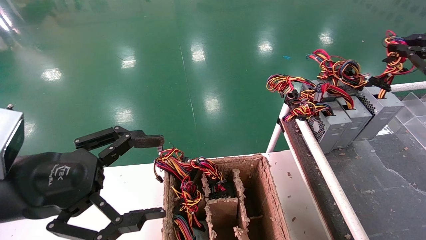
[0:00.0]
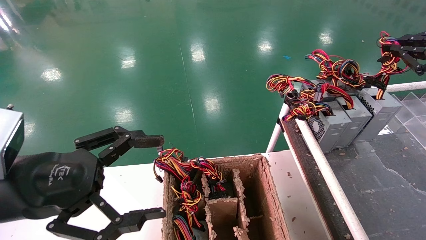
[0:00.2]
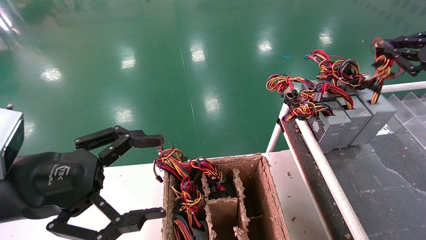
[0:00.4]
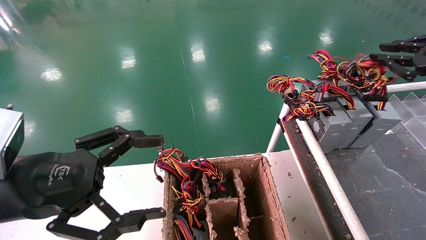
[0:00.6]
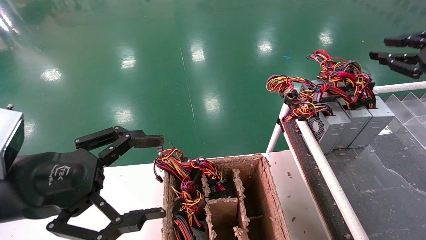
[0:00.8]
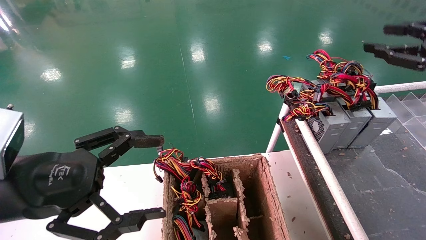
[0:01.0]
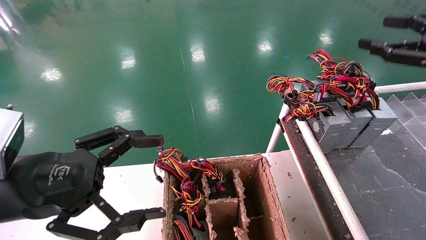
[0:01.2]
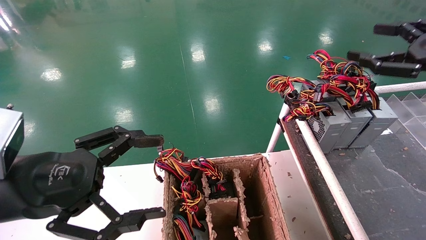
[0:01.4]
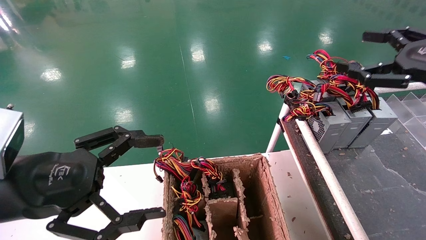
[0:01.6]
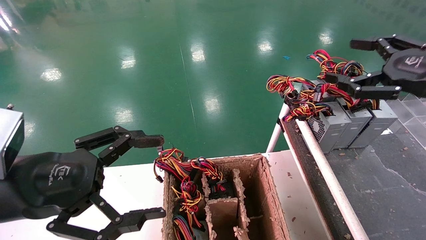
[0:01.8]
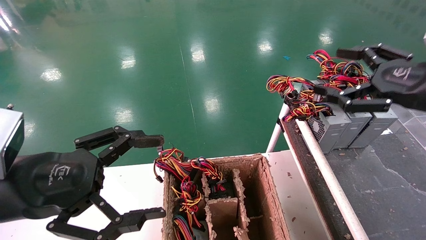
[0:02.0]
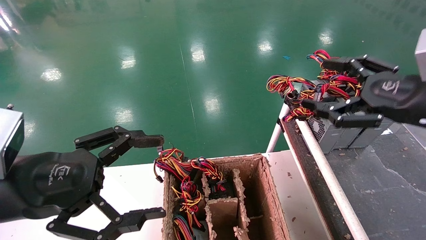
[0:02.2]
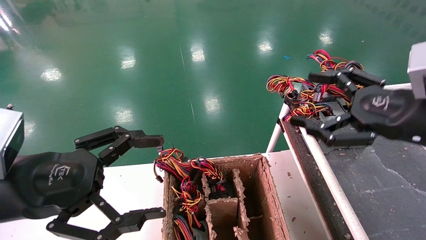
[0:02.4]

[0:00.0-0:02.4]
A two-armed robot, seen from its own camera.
0:00.0 to 0:01.2: The right gripper opens up.
0:01.2 to 0:02.4: The right gripper is displaced to the left and downward by about 15 cm, and opens up.

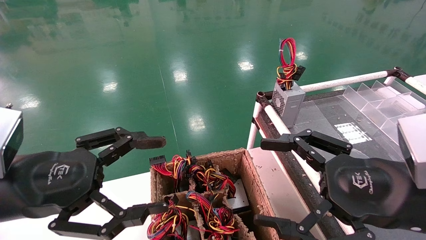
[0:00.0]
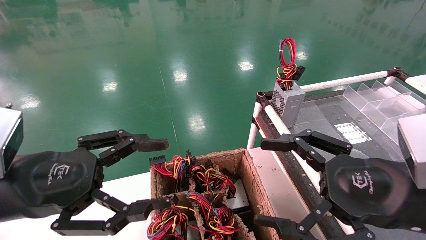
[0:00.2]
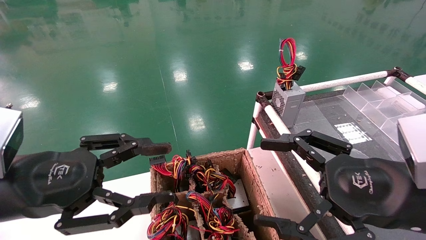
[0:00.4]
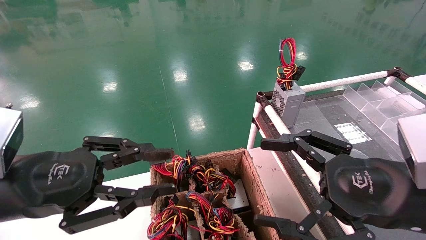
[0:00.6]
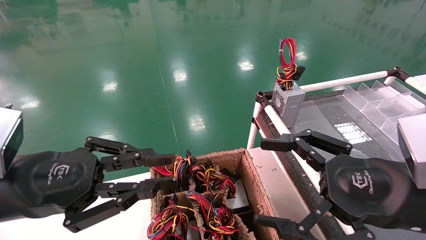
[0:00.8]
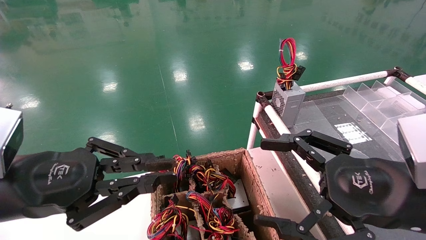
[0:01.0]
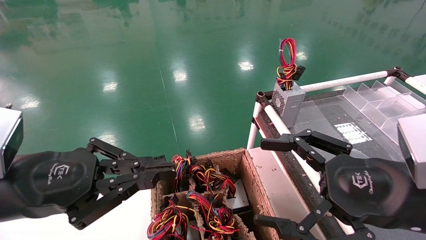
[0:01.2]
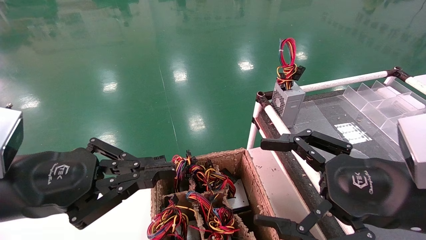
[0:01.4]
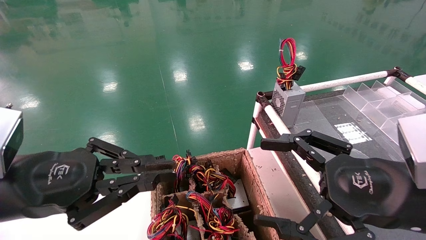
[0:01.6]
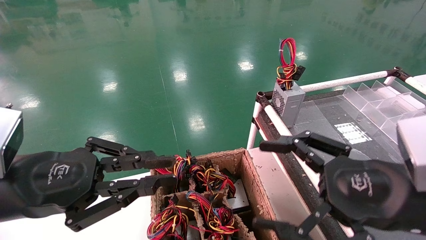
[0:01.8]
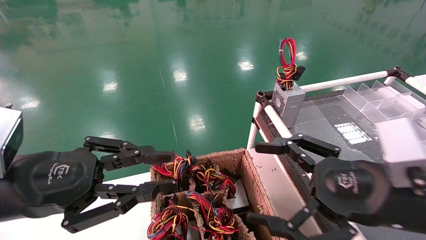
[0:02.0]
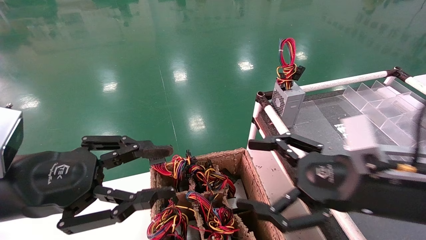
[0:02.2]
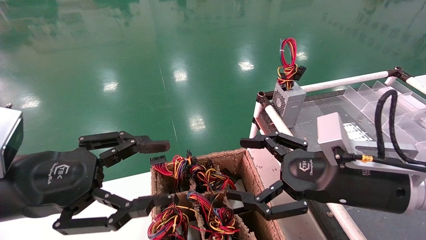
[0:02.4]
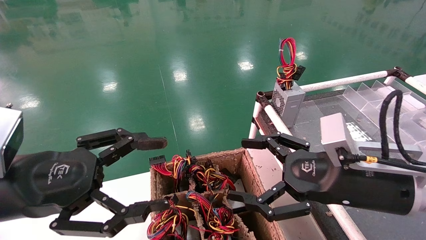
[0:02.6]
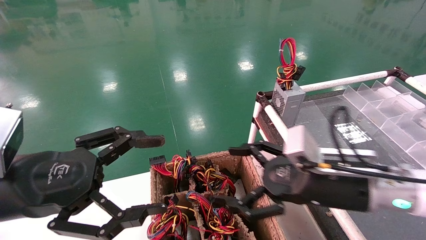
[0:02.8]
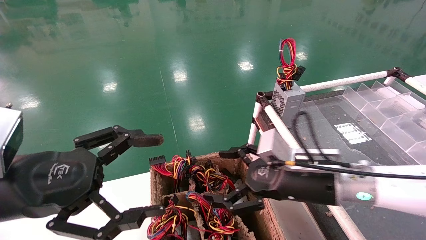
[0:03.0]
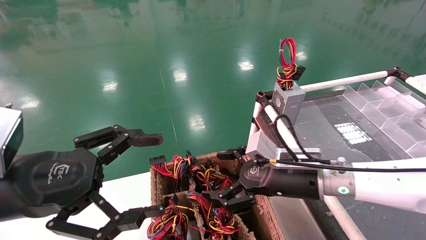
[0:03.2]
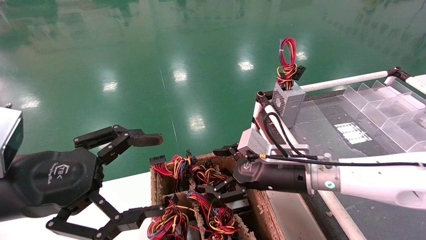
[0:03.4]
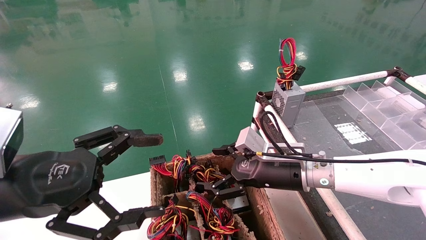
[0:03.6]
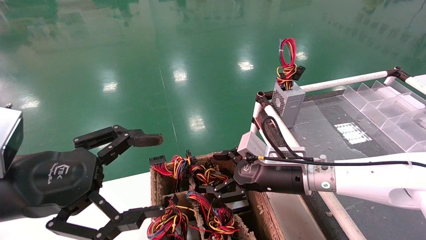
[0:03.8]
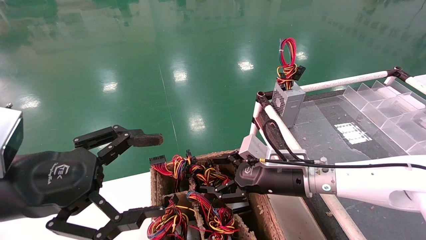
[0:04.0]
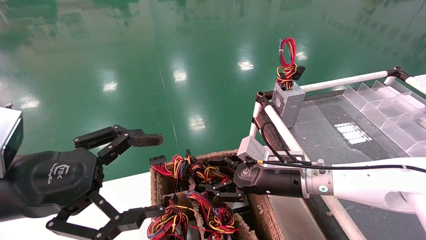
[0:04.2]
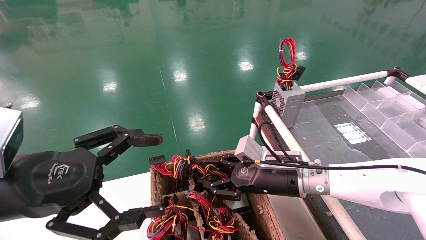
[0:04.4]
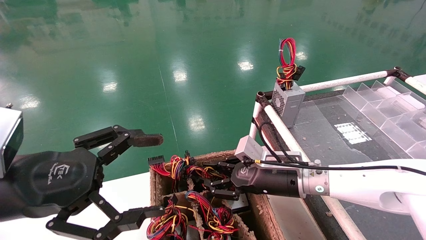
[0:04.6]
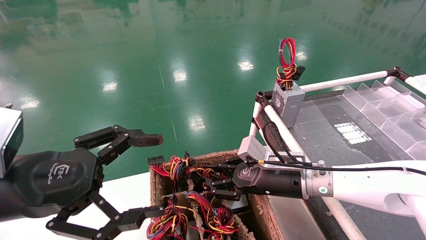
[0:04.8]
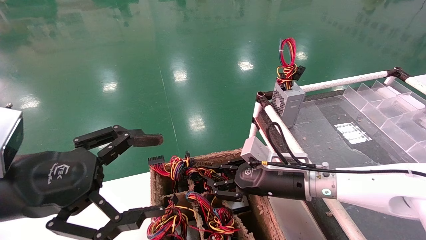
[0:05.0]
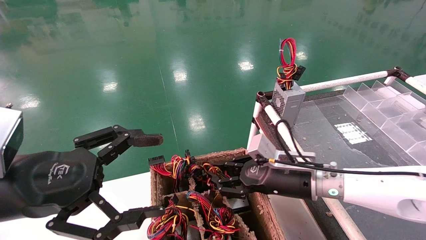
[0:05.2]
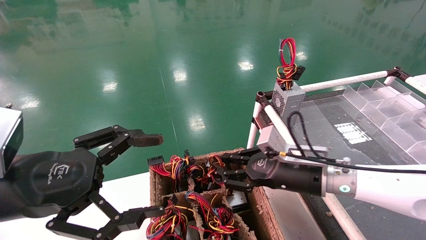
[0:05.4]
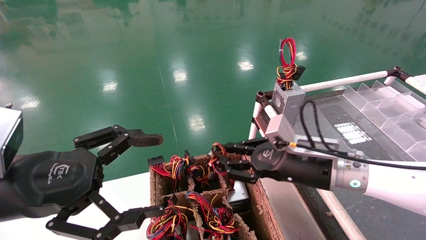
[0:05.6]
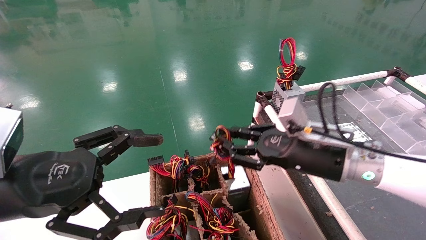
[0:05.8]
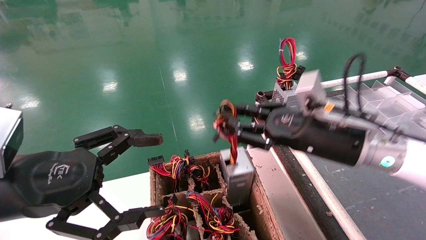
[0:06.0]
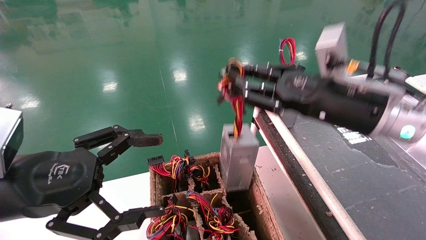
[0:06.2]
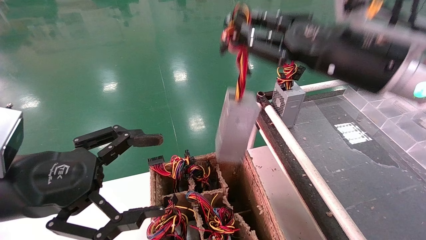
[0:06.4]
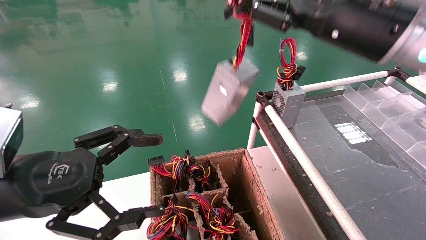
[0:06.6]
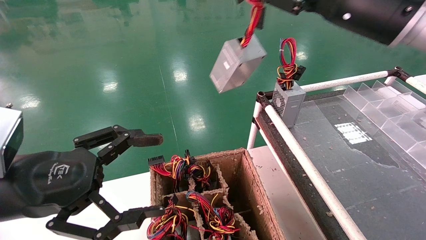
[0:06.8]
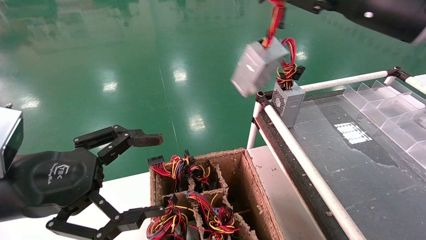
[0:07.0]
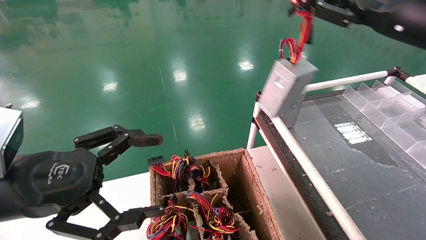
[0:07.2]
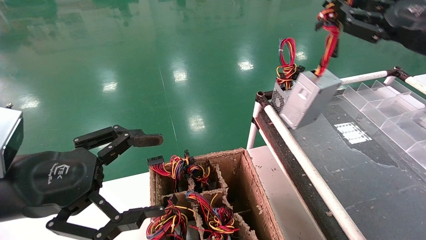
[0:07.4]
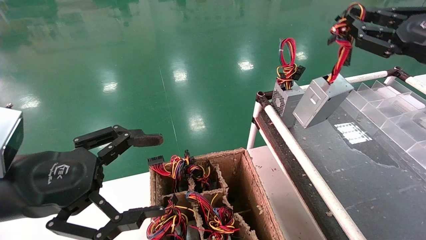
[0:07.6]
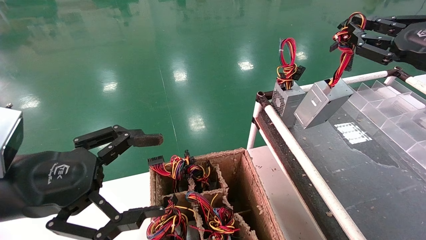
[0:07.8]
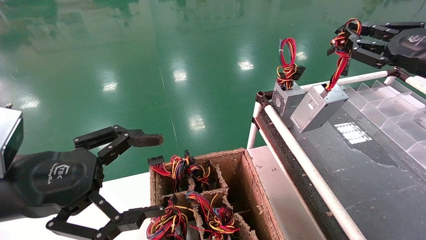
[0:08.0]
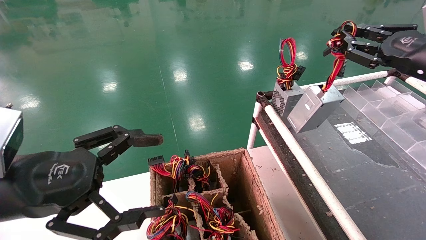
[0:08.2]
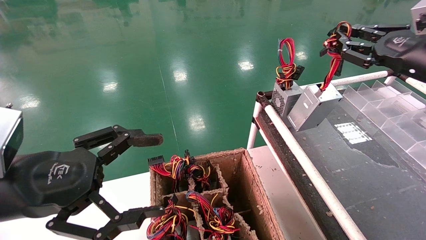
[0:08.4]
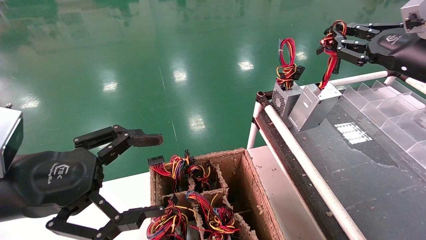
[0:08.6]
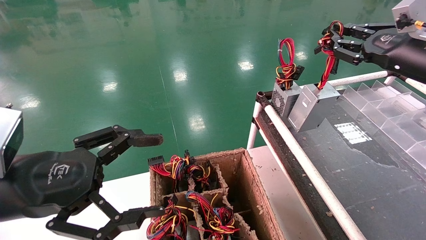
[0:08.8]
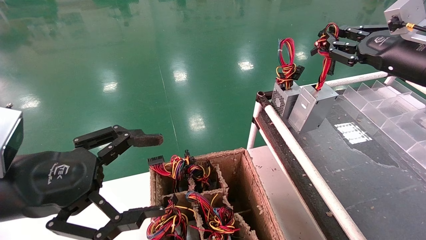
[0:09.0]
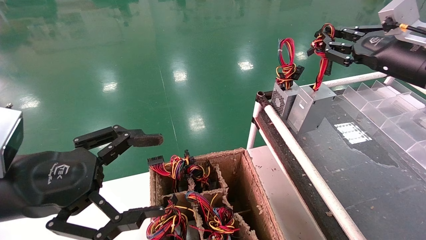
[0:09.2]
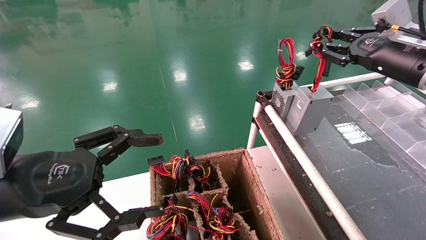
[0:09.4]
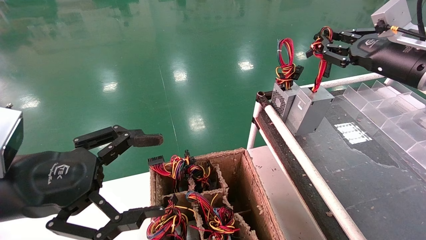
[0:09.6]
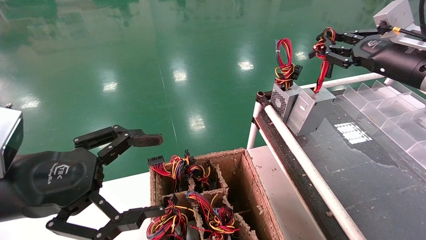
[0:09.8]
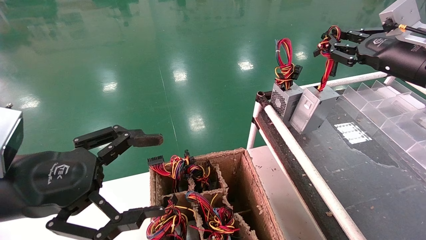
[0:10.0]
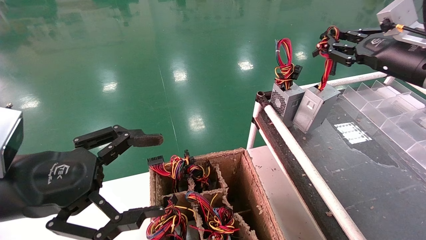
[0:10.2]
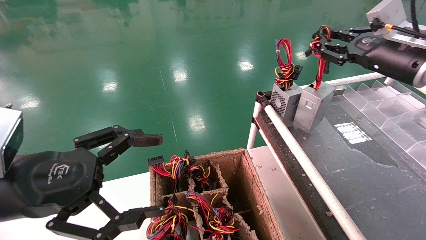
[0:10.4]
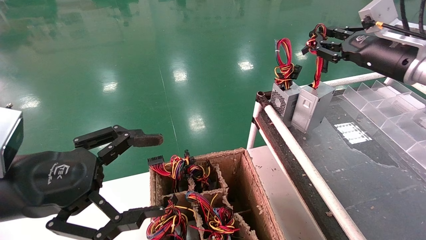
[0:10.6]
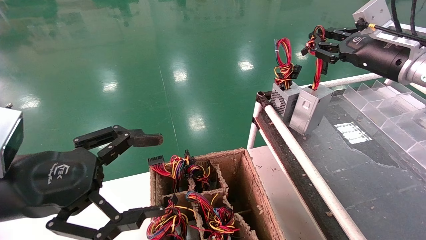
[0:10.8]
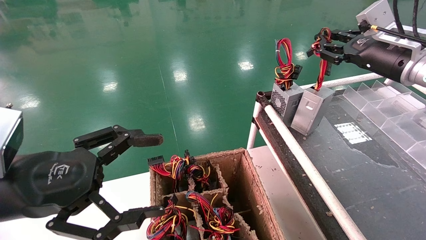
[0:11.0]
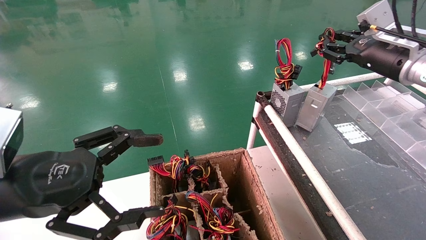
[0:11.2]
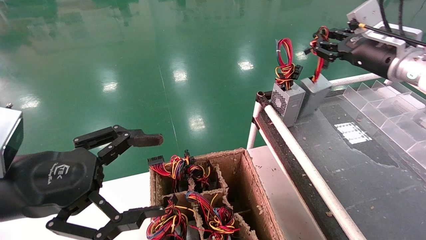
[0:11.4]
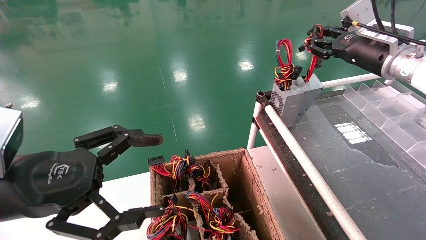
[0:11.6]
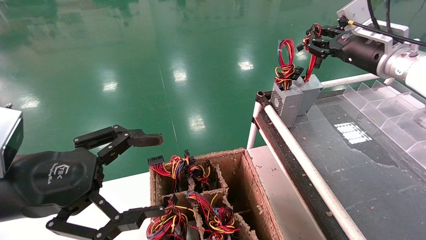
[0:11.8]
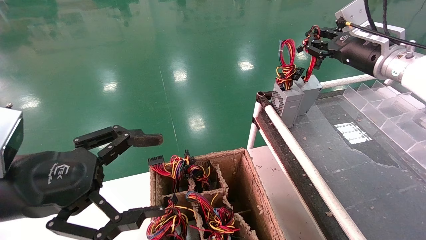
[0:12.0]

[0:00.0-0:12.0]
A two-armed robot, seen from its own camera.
Step, 0:01.6 to 0:05.0: Grab and lift the power supply from the large box.
0:00.0 to 0:01.6: The left gripper closes up.
0:01.6 to 0:03.0: The right gripper travels forward, to the left and downward by roughly 15 cm; the left gripper opens its fingers.
0:03.0 to 0:04.4: The right gripper shifts roughly 5 cm forward, and closes up.
0:04.4 to 0:06.0: The right gripper goes roughly 15 cm upward, to the right and backward, and closes its fingers.
0:06.0 to 0:07.6: The right gripper heads to the right and upward, covering approximately 20 cm.
0:07.6 to 0:09.0: The right gripper shifts about 5 cm forward.
0:09.0 to 0:10.4: The grippers make only small movements.
0:10.4 to 0:12.0: The right gripper moves some 5 cm.

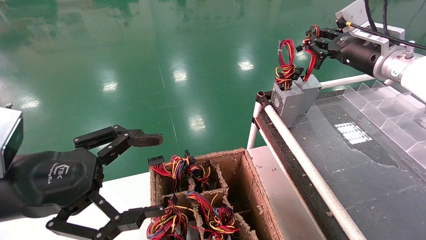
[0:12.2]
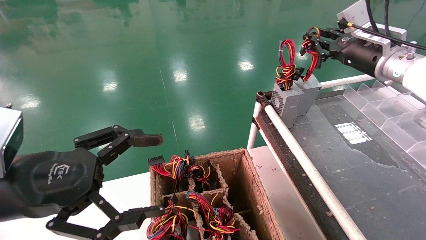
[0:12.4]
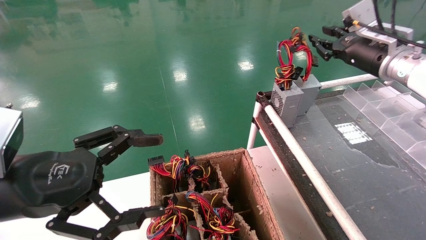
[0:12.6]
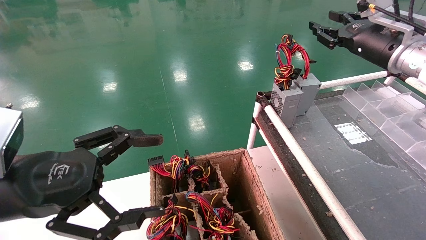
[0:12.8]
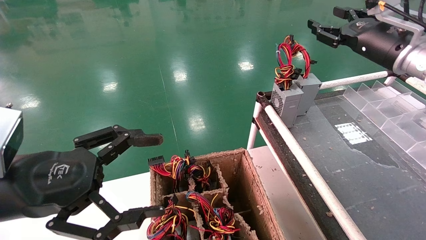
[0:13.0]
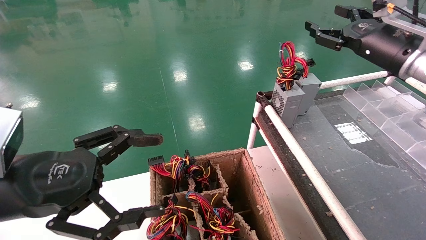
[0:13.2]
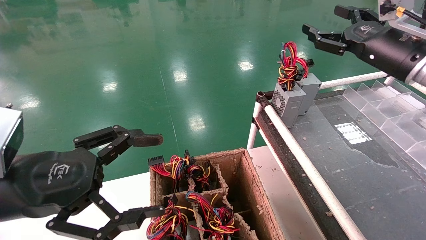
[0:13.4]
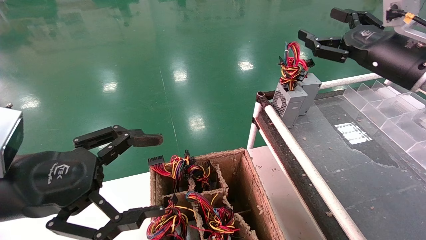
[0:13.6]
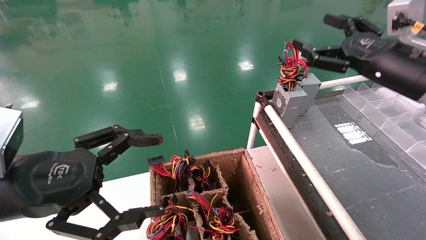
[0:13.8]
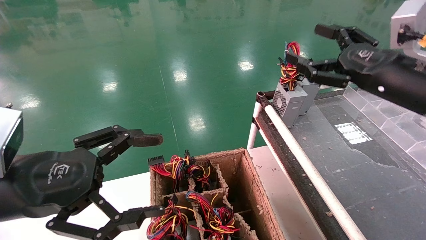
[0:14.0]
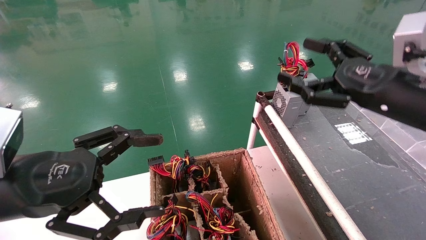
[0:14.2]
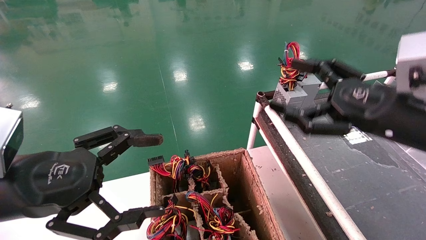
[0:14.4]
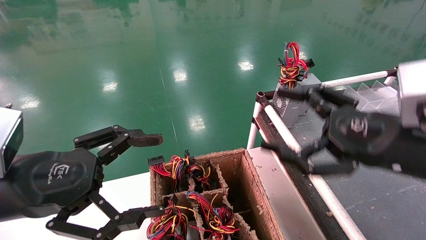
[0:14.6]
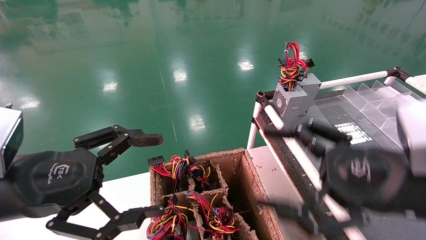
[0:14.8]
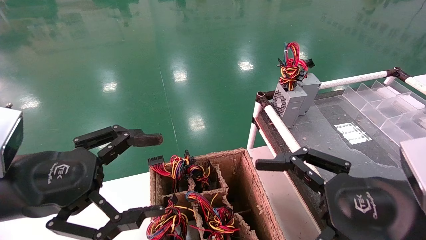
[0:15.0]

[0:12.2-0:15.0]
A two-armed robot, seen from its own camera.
0:12.2 to 0:13.6: The right gripper travels backward by some 10 cm, and opens up.
0:13.6 to 0:15.0: The right gripper moves backward, downward and to the left, about 25 cm.
